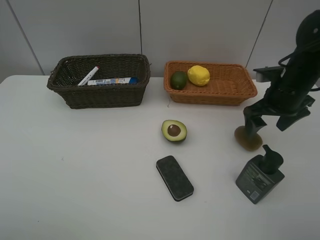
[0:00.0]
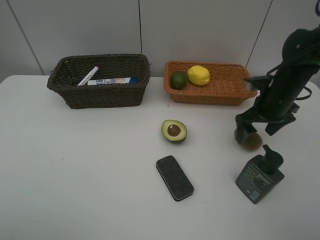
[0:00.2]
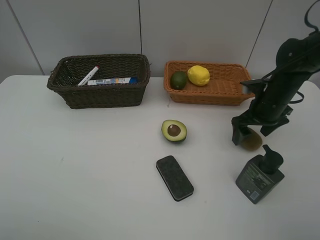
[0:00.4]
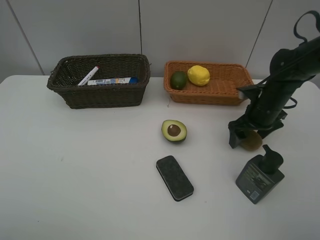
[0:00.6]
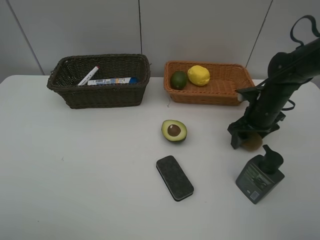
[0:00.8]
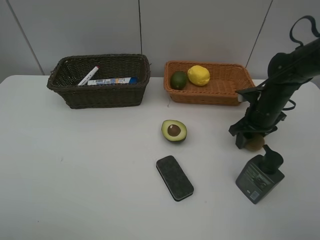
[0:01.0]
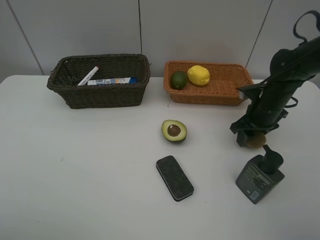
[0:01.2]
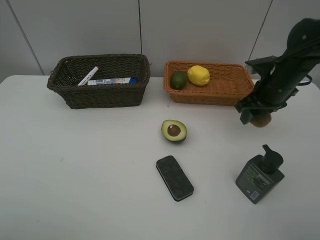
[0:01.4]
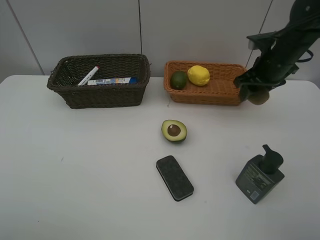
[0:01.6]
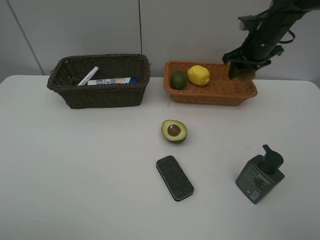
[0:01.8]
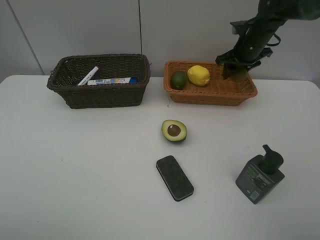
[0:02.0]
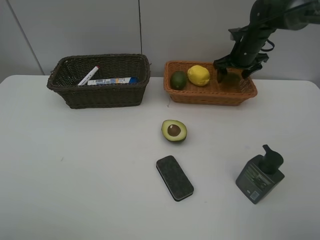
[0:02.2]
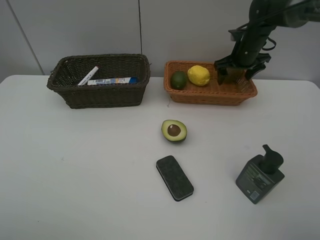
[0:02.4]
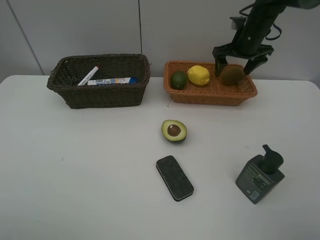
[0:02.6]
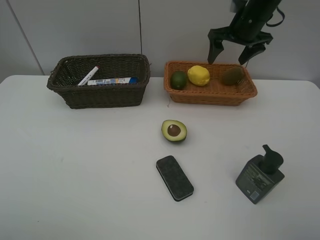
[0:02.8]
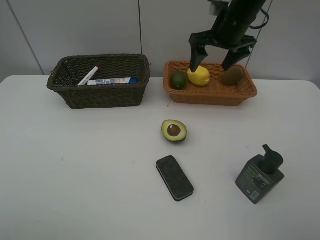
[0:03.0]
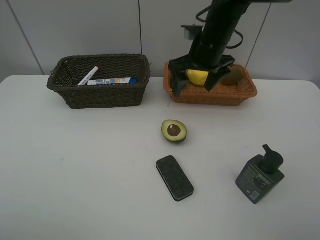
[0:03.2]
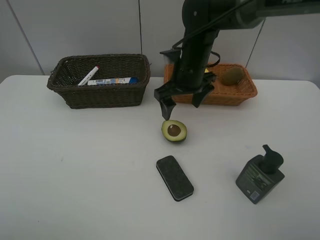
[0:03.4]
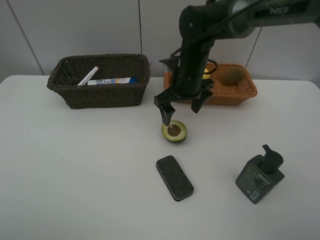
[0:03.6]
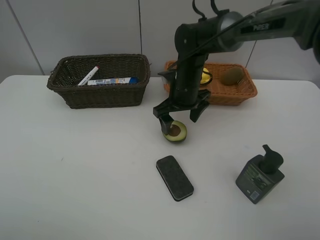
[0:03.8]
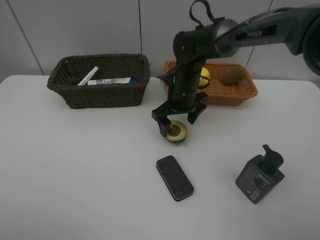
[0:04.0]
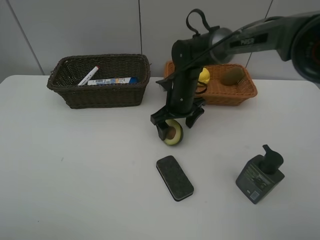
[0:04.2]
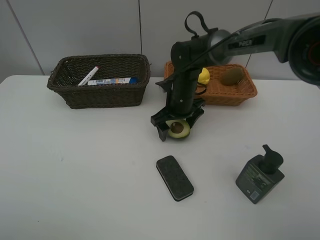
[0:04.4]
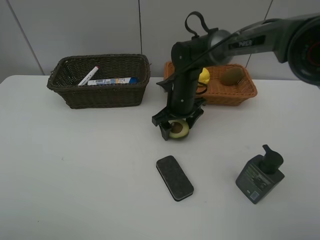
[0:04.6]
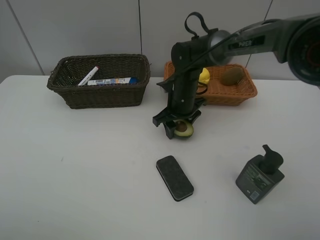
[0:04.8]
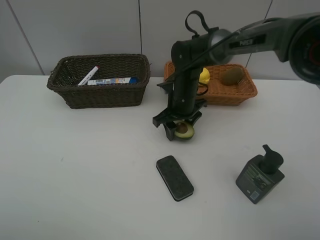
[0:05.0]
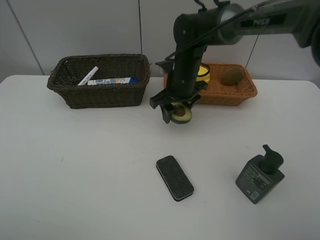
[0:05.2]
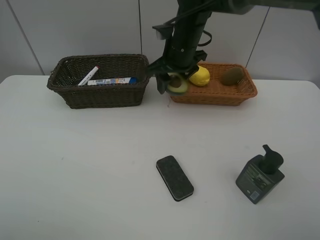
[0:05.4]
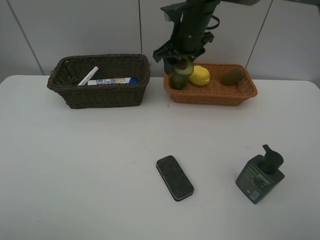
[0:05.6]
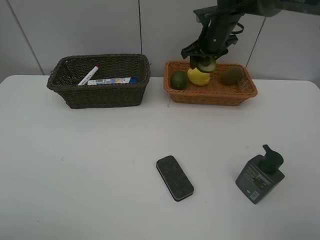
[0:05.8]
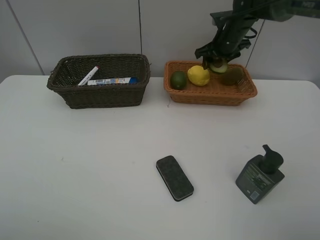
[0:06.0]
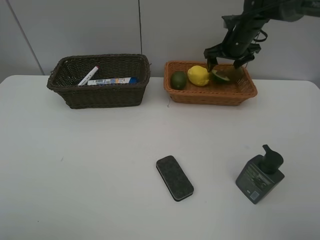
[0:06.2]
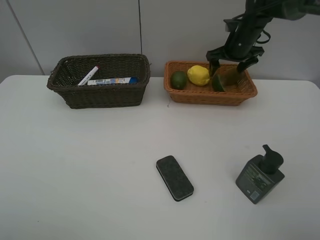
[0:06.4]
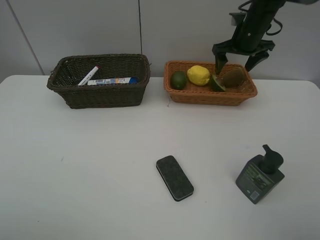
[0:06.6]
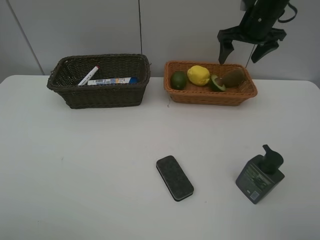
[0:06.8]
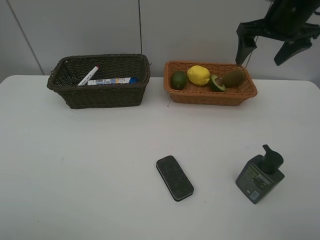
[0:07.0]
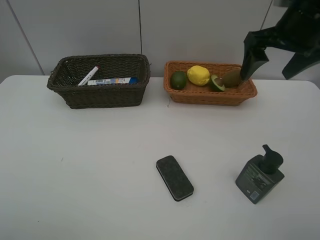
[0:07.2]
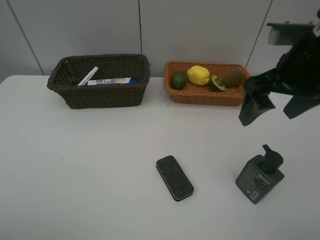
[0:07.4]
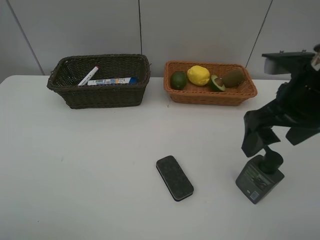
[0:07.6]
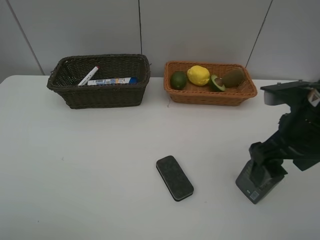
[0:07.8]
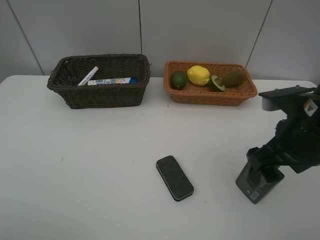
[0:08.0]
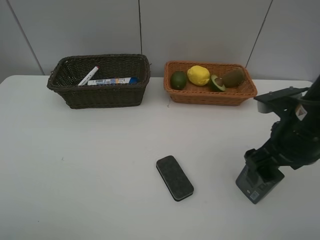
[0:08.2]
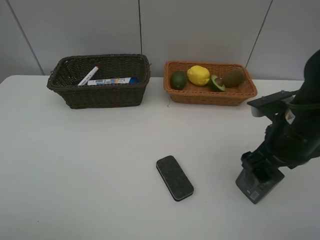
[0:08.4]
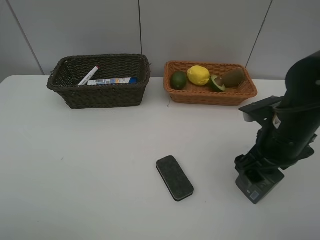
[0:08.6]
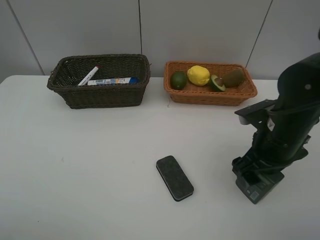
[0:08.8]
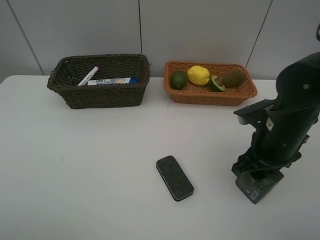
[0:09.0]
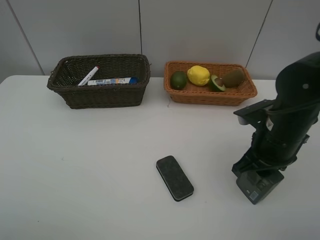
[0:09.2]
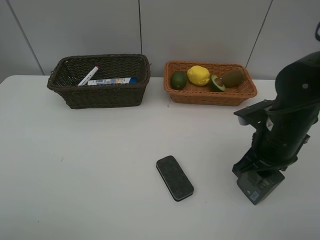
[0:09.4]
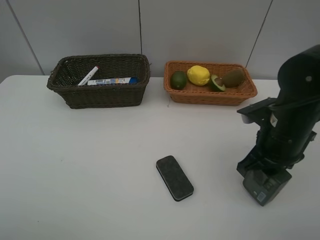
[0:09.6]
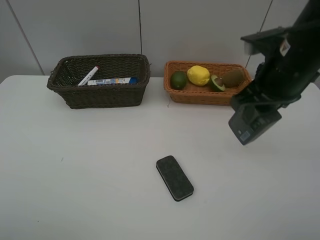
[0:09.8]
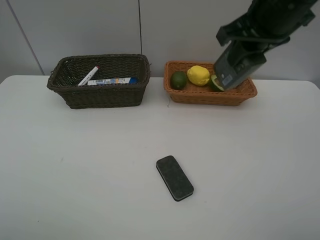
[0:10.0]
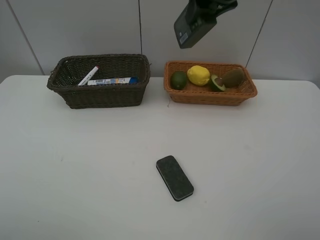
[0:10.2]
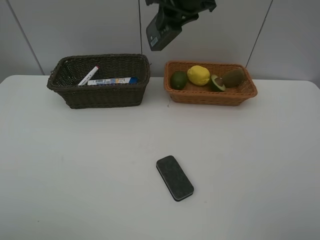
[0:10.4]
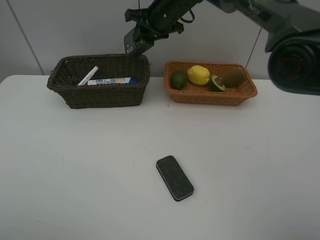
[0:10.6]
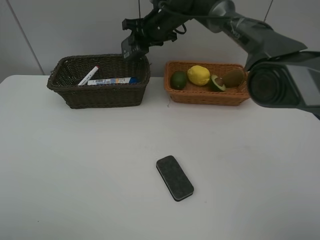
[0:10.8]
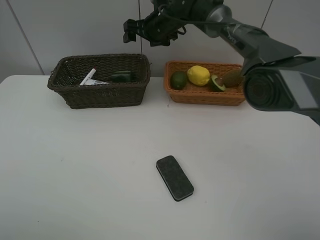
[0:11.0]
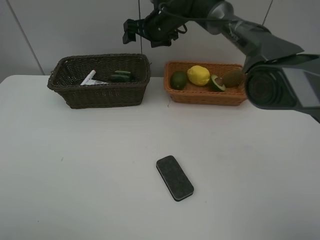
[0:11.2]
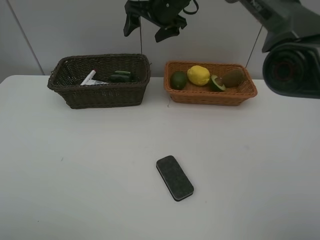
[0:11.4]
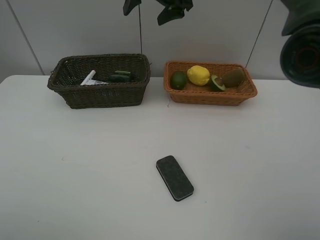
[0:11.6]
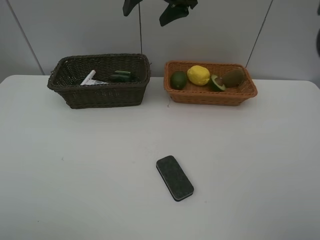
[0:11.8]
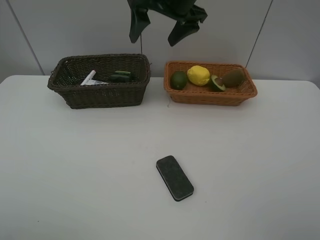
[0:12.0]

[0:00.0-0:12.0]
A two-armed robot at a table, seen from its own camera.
Task of the whole recording: Place multiple objects separately in different baskets.
Step, 0:01.4 to 0:02.6: Place the kiwi in the light basket with right gripper.
Step, 0:02.8 to 0:05.0: Pick up the avocado with right gripper.
Step, 0:05.2 to 0:06.2: Place the avocado in the light basket with right gripper.
Step, 0:06.4 to 0:09.6: Pick up the hard facial cleanser with right gripper.
Step, 0:09.8 to 0:11.0: Place the hard facial cleanser in the dark basket with right gripper.
0:00.0 to 0:01.6: The right gripper travels forward by about 5 cm, travels downward and back again, roughly 5 cm each way, and closes.
0:01.6 to 0:03.0: The right gripper travels to the left by some 10 cm, moves some 10 cm forward and comes back, and opens.
0:03.0 to 0:04.4: The right gripper is displaced downward and to the left by approximately 20 cm.
0:04.4 to 0:06.0: The right gripper moves to the right, forward and upward, some 20 cm, and closes up.
0:06.0 to 0:07.6: The right gripper goes approximately 30 cm backward, and opens its fingers.
0:07.6 to 0:09.0: The right gripper goes about 10 cm downward, and closes its fingers.
0:09.0 to 0:10.4: The right gripper travels forward, upward and to the left by some 30 cm, and closes.
0:10.4 to 0:12.0: The right gripper moves backward, approximately 5 cm, and opens its fingers.

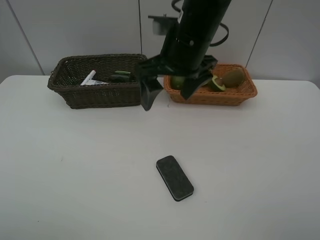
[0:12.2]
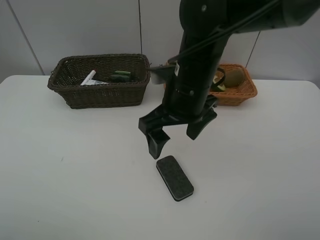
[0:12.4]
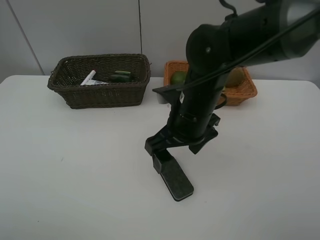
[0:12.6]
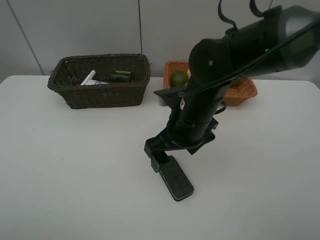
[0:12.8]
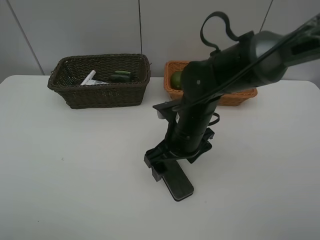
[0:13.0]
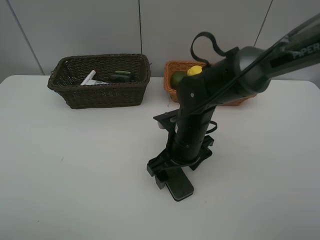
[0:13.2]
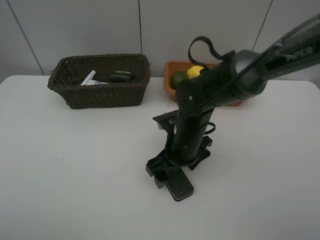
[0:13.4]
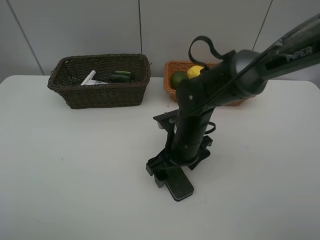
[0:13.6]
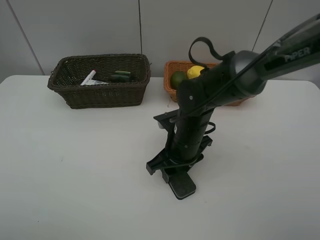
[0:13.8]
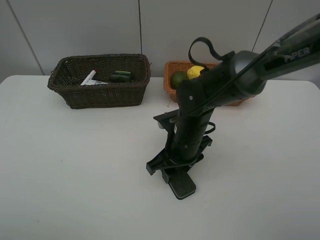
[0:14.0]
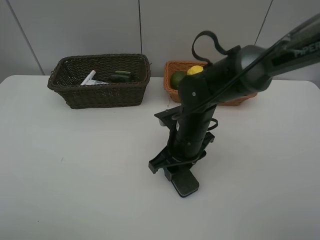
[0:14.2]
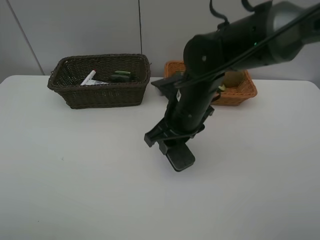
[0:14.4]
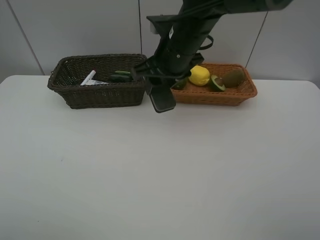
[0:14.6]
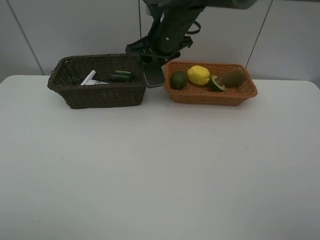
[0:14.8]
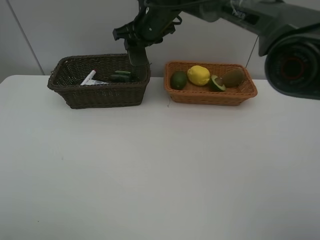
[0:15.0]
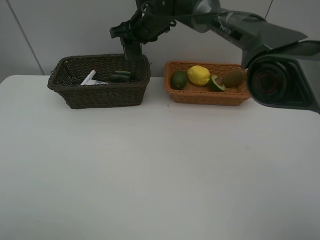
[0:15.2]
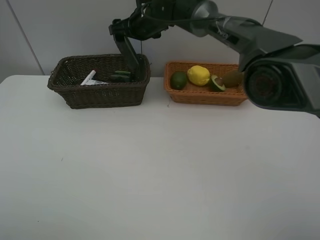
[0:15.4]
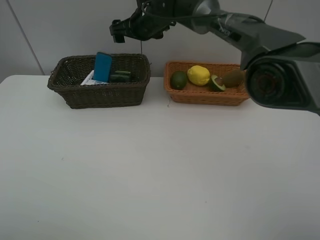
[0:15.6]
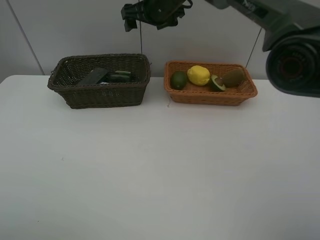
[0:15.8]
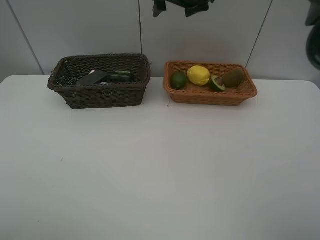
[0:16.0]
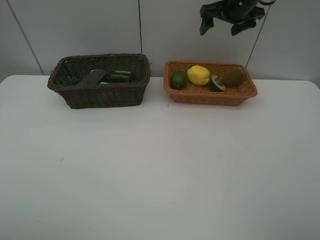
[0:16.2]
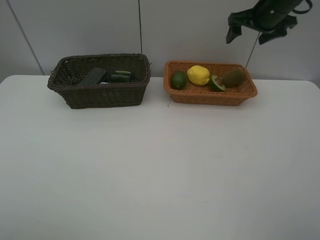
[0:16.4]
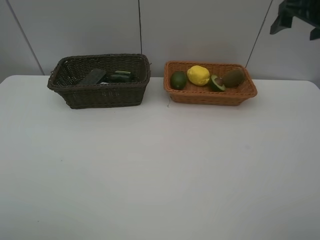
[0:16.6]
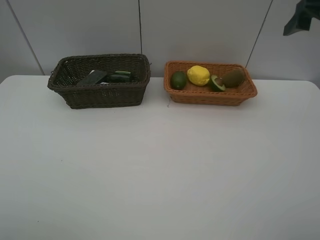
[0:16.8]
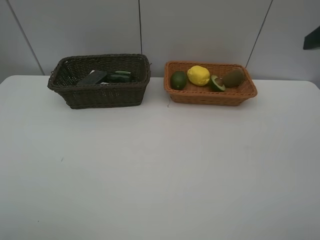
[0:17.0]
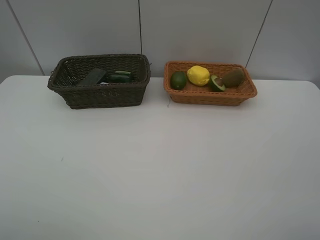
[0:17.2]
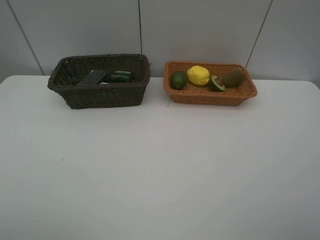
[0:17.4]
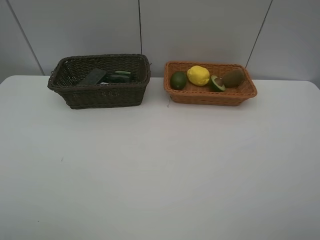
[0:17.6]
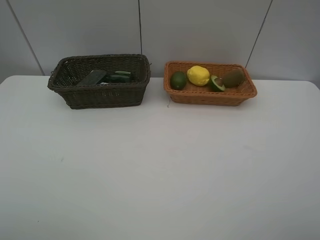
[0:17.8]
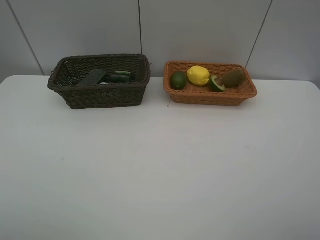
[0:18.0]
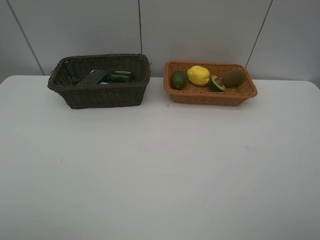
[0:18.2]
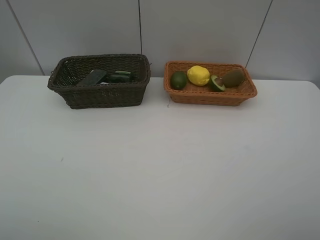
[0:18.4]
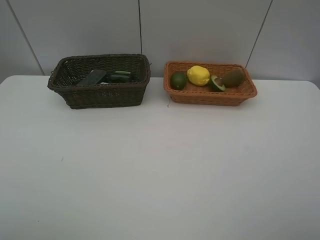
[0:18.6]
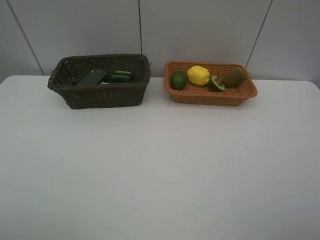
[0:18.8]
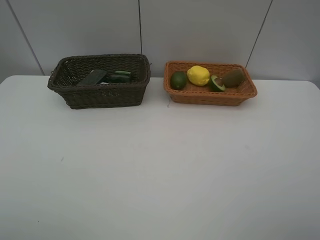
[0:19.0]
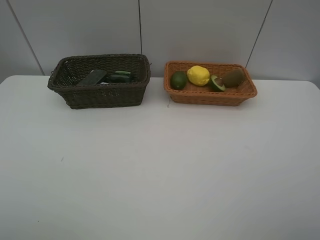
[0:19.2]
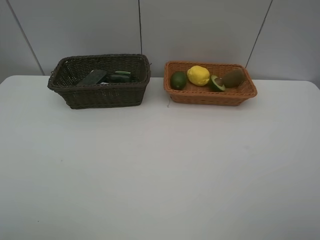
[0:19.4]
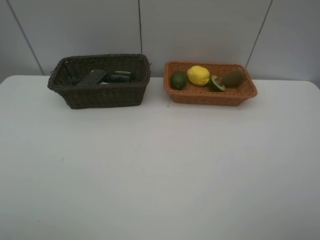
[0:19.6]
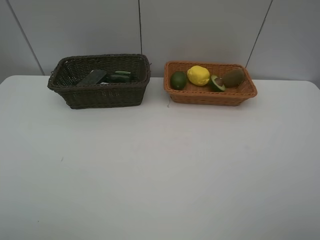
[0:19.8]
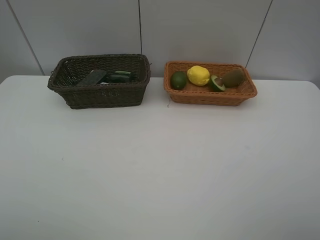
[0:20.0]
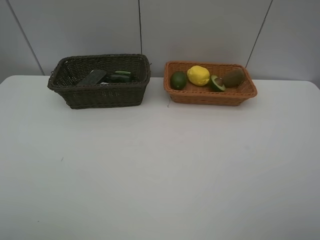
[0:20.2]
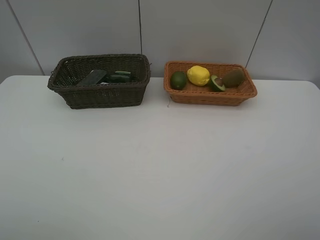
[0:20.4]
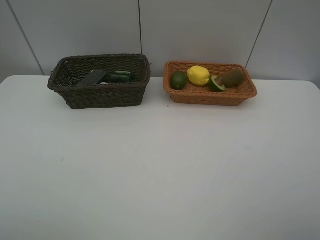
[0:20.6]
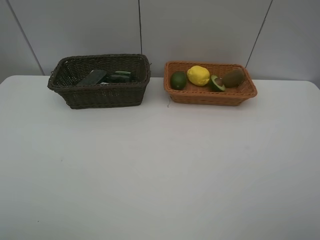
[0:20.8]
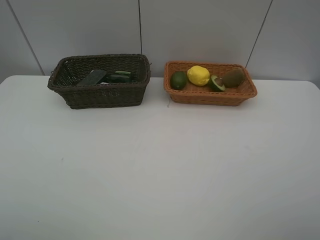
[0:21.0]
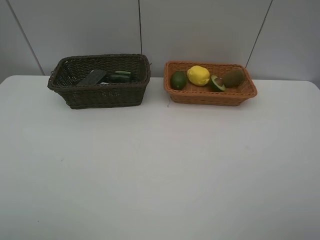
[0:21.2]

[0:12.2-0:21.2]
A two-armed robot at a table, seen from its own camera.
Task of the whole recording: Place multiple objects separately in different baskets.
Step, 0:12.2 to 0:14.2: Pick up blackboard eraser with right gripper.
Step, 0:14.4 to 0:15.6: Place the blackboard eraser in the dark basket with right gripper.
0:12.2 to 0:13.8: The right gripper is displaced downward by roughly 15 cm, and closes its fingers.
0:13.8 to 0:15.2: The right gripper moves forward and upward, roughly 25 cm.
0:15.2 to 0:16.6: The right gripper moves to the right, about 35 cm, and opens its fingers.
0:16.6 to 0:18.2: The right gripper goes about 35 cm backward.
0:19.8 to 0:21.2: Both grippers stay about where they are.

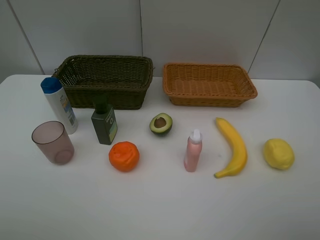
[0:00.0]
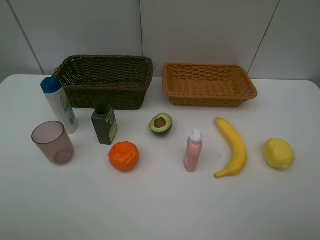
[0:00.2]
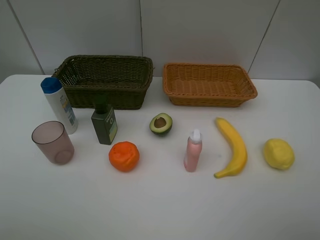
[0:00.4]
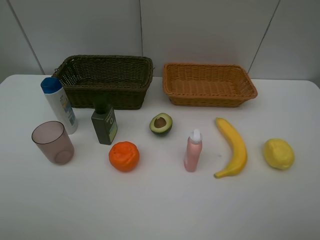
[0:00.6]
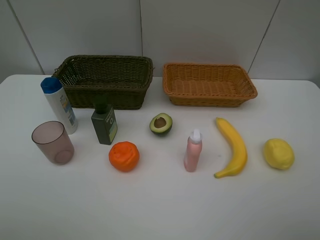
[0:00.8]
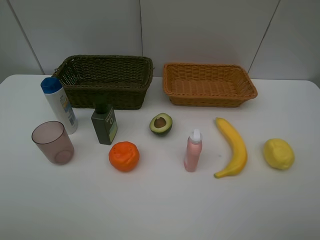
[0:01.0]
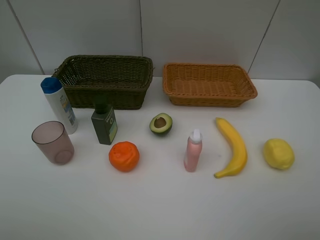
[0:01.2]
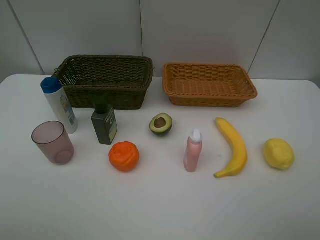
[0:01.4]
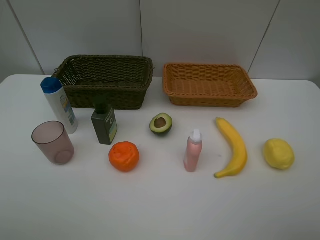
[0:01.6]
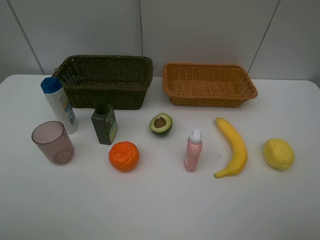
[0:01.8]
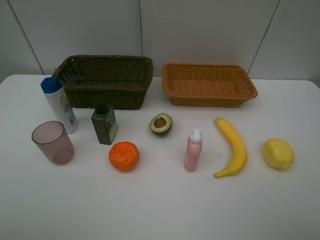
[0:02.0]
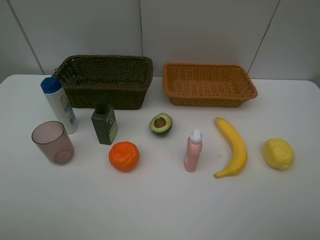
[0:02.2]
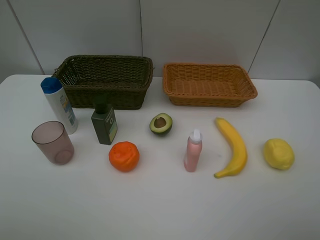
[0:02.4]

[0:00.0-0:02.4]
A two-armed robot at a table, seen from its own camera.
Task of the whole recording: Place multiple objects separately in different baskets.
0:00.0 to 0:02.4: The two grippers keep their place.
